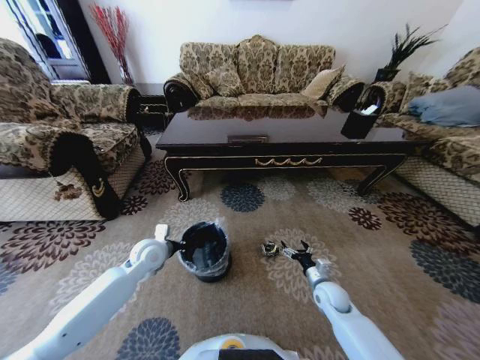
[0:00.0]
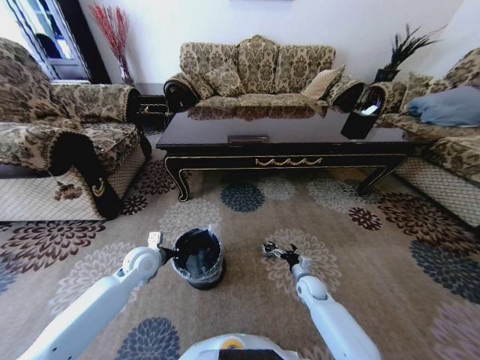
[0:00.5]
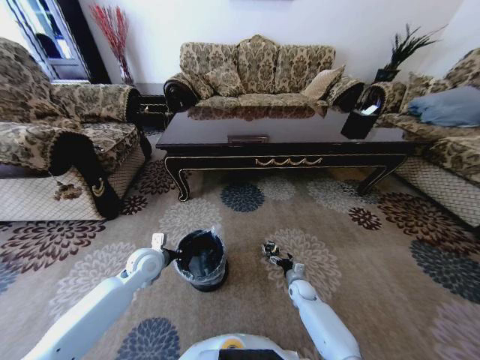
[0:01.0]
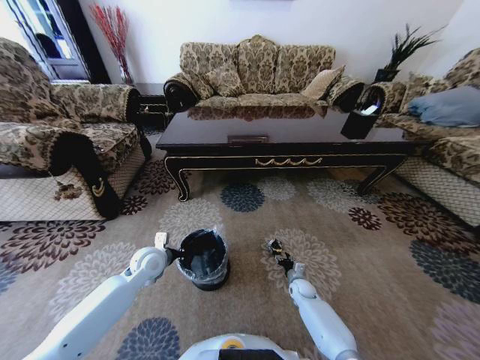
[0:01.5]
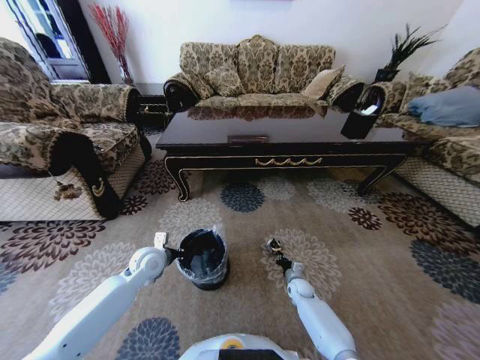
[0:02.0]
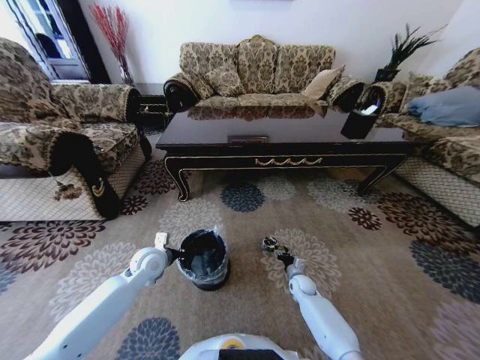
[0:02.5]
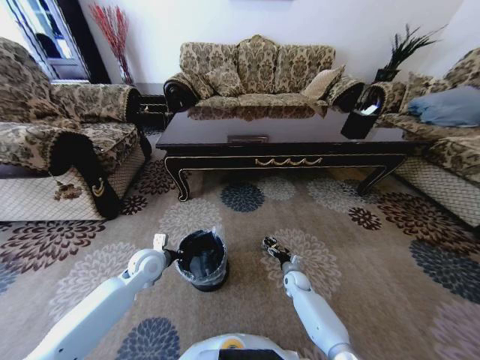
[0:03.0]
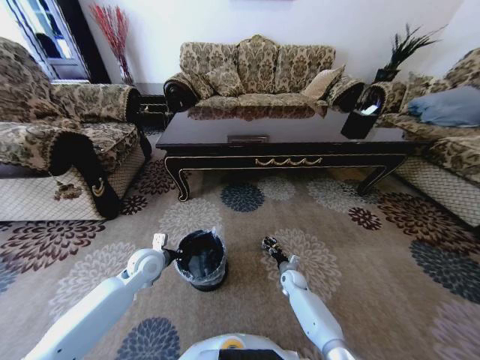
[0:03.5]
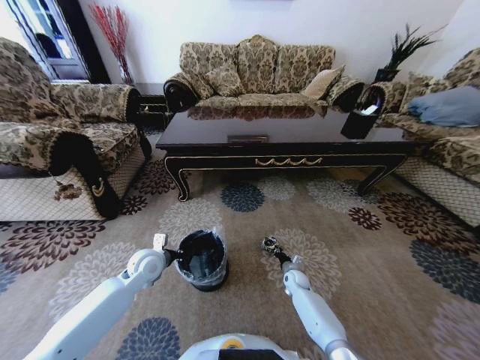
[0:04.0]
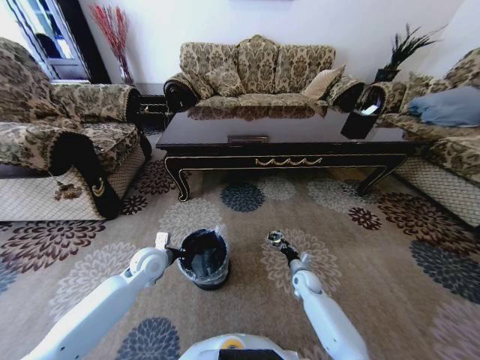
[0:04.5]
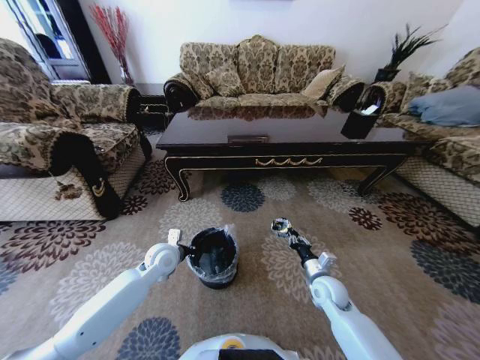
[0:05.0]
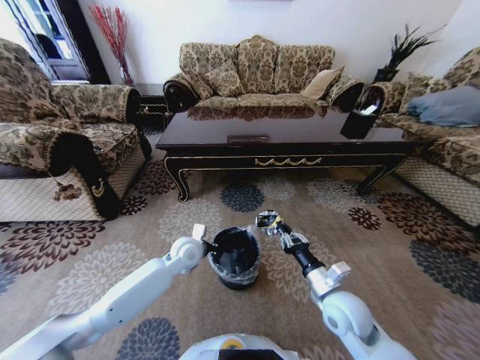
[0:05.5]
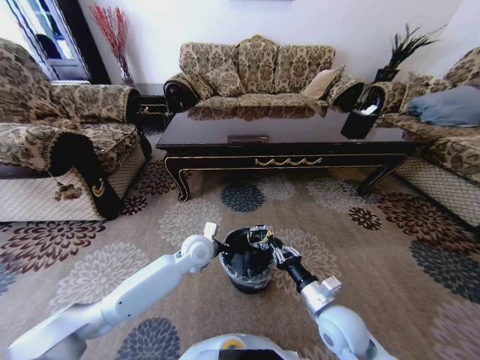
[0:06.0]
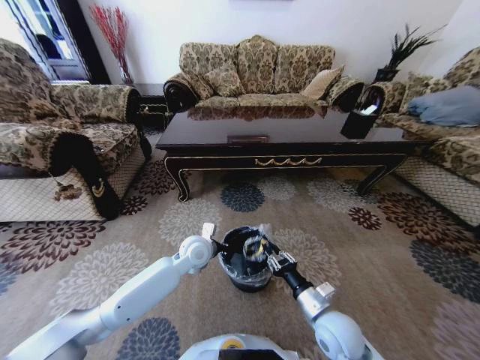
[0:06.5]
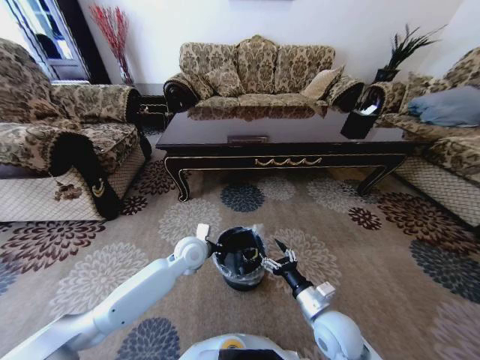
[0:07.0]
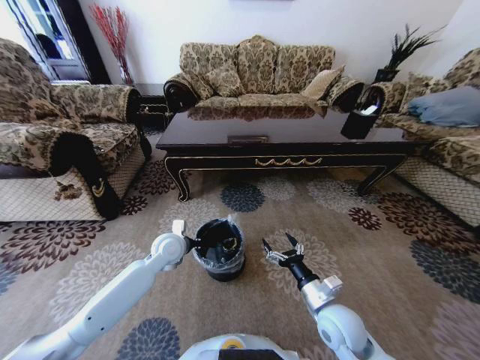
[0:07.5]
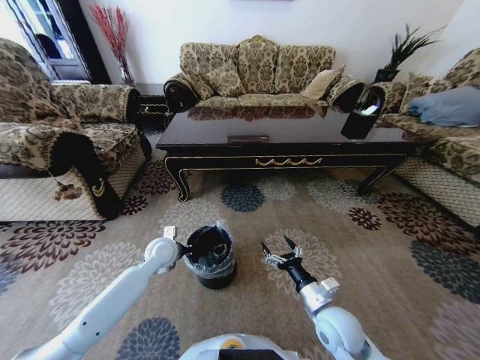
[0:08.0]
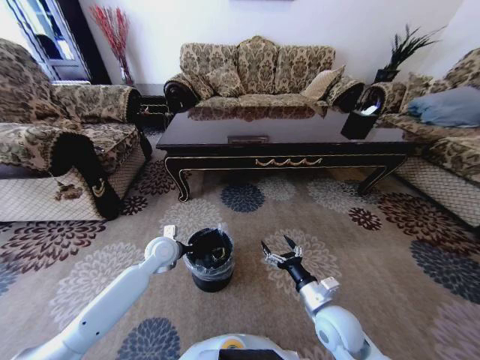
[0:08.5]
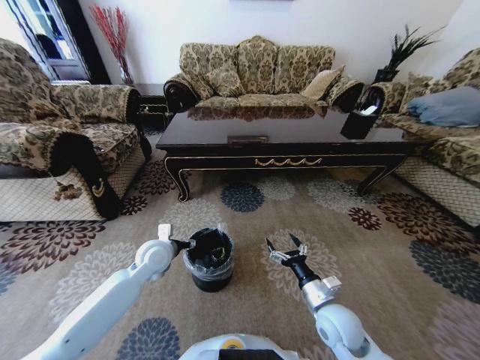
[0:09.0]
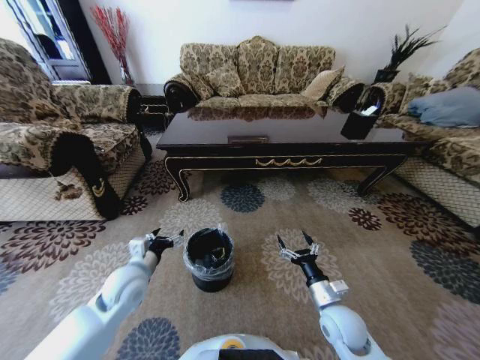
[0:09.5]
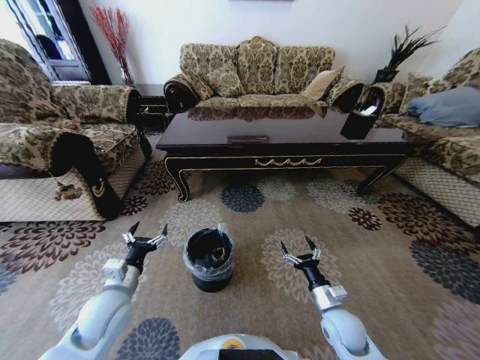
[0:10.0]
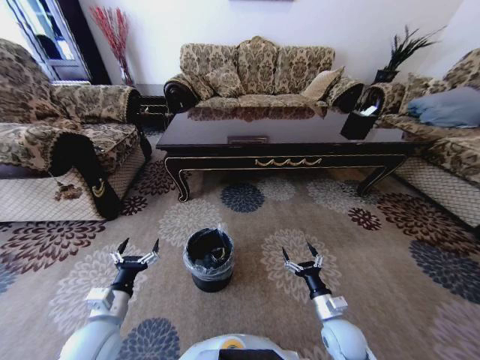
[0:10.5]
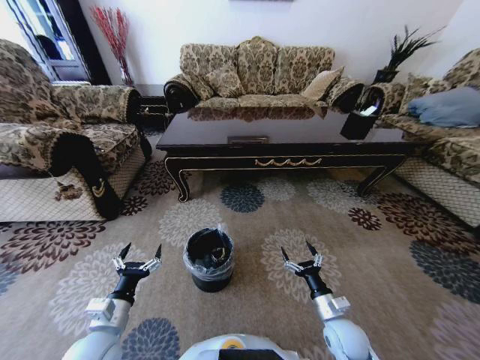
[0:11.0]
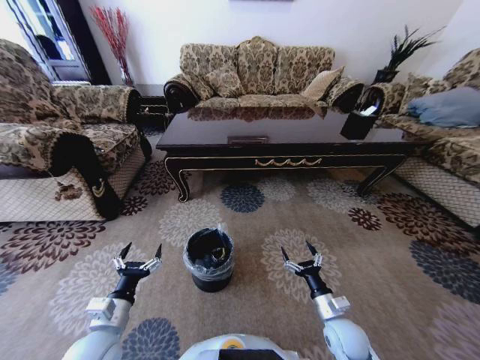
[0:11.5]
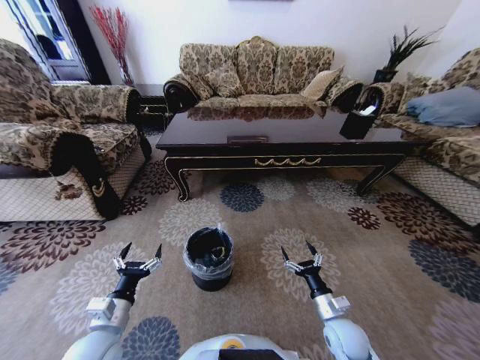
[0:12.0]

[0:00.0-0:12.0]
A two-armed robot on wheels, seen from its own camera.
Task of the whole recording: Move to the front of the table and pick up the trash from the floor, then place it into the trash bin.
0:00.0 to 0:02.0: The right gripper moves downward and forward, roughly 15 cm, and closes its fingers.
0:02.0 to 0:04.0: The right gripper opens and closes again.
0:04.0 to 0:06.0: The right gripper shifts some 30 cm upward and backward; the left gripper is displaced to the right by about 15 cm.
0:06.0 to 0:08.0: The right gripper opens. Meanwhile the left gripper heads to the left, covering some 10 cm.
0:08.0 to 0:10.0: The right gripper shifts some 5 cm downward. The left gripper shifts roughly 20 cm backward and to the left, and opens up.
0:10.0 to 0:12.0: The left gripper travels backward by some 5 cm.

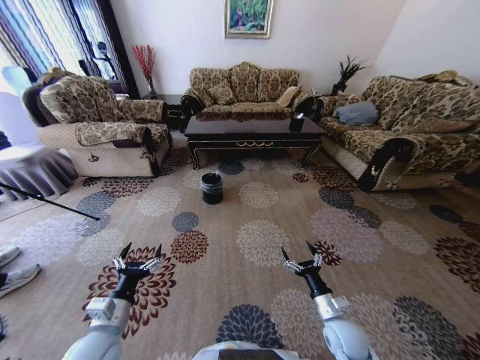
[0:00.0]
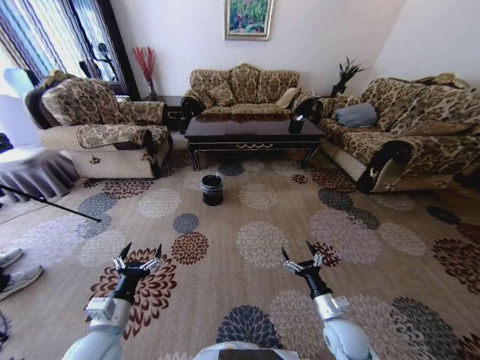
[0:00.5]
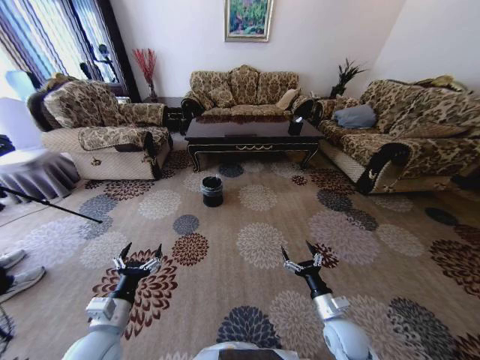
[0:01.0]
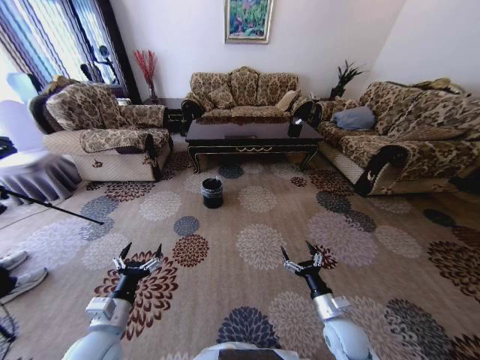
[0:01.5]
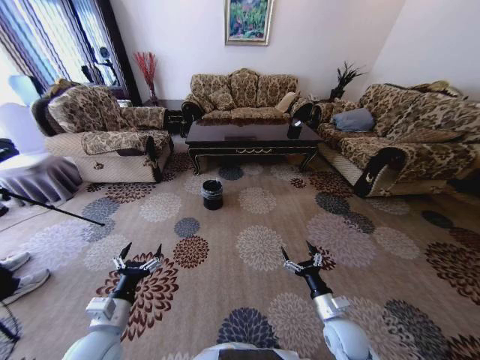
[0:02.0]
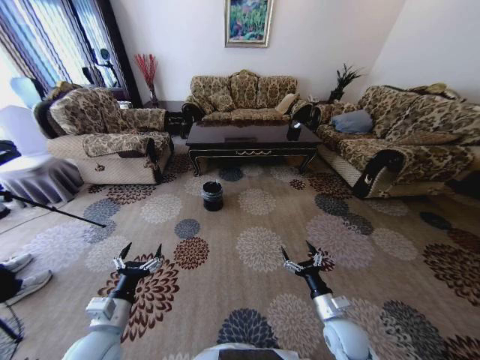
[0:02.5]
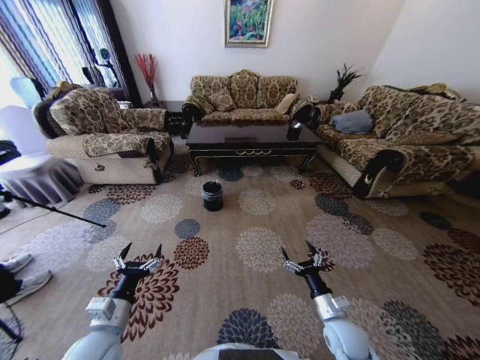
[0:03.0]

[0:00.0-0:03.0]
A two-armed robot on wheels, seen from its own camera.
Task of the whole recording: Move to the front of the table and pick up the trash from the floor, then place it into the trash bin.
0:01.5 to 0:03.0: Neither gripper changes place.

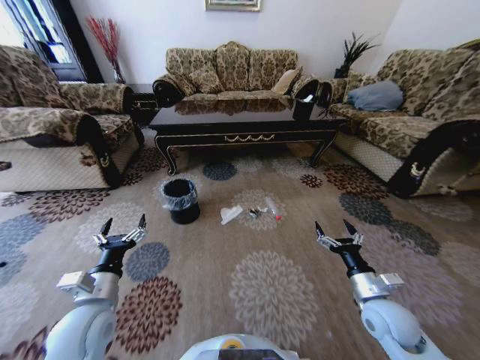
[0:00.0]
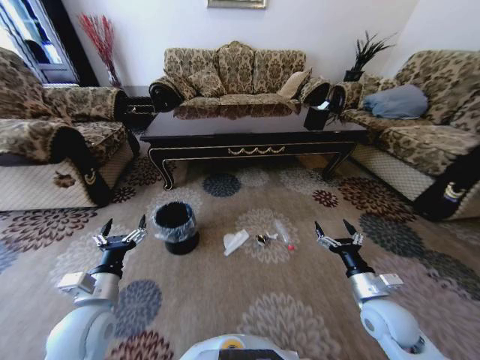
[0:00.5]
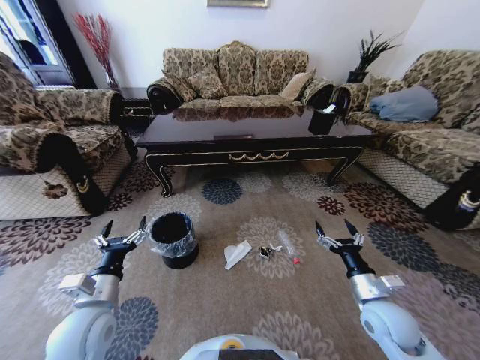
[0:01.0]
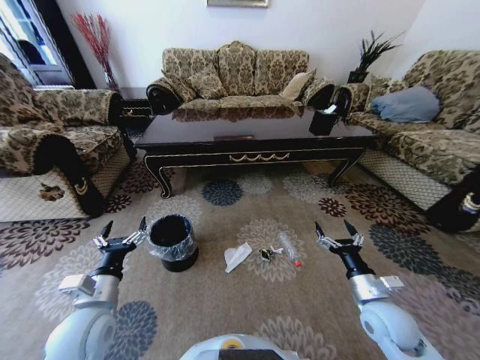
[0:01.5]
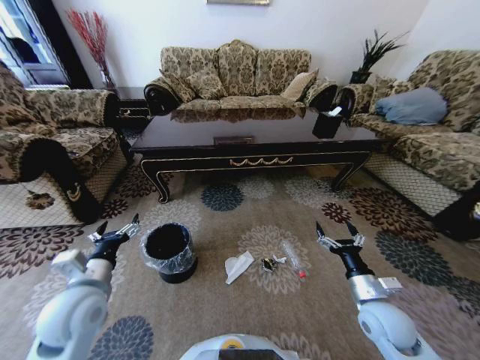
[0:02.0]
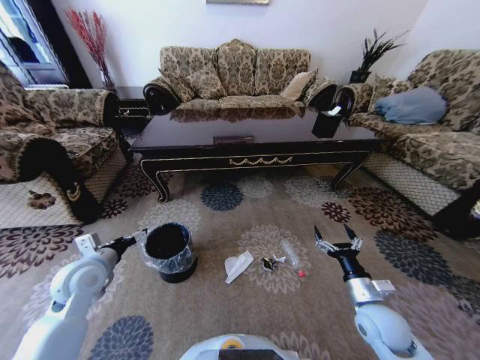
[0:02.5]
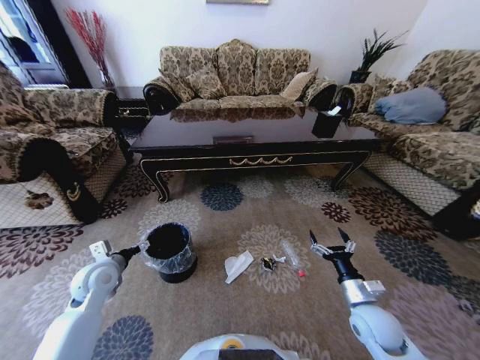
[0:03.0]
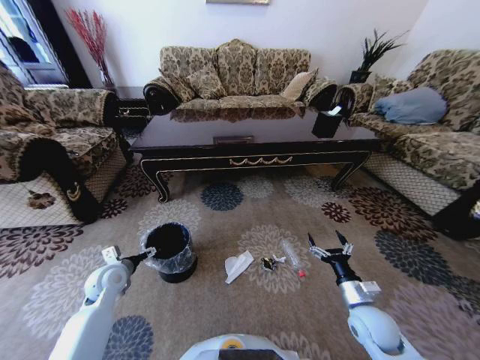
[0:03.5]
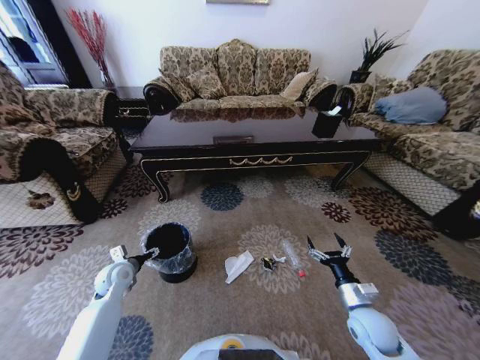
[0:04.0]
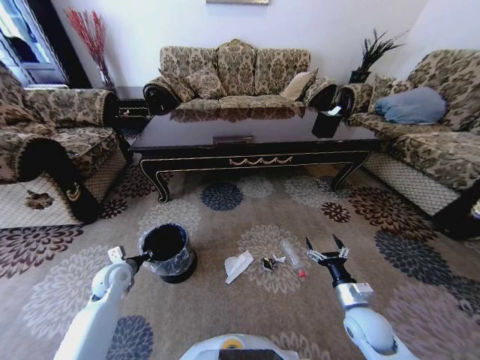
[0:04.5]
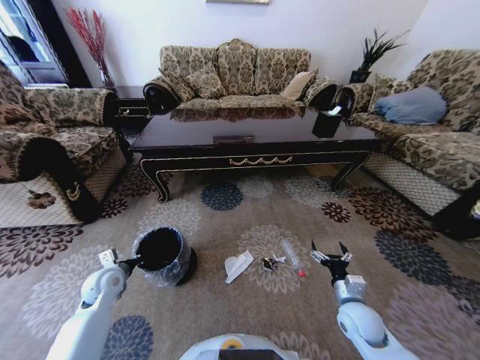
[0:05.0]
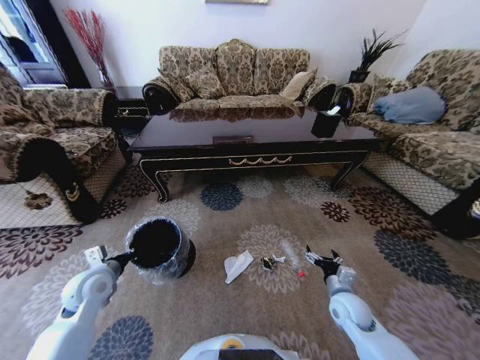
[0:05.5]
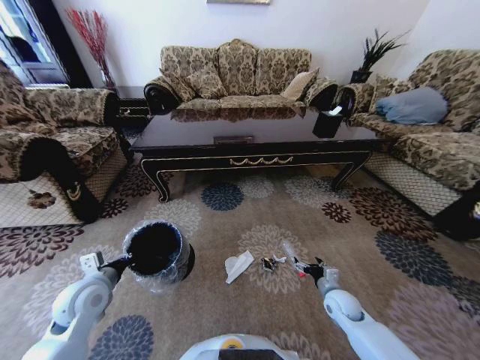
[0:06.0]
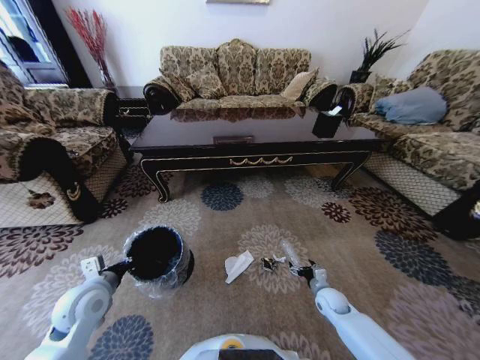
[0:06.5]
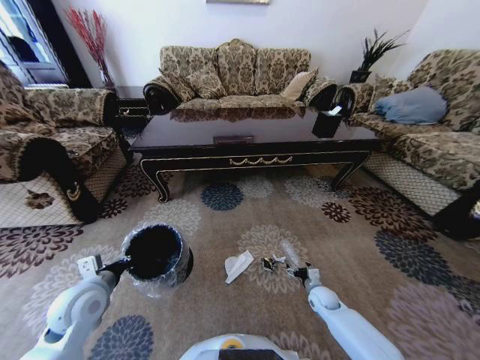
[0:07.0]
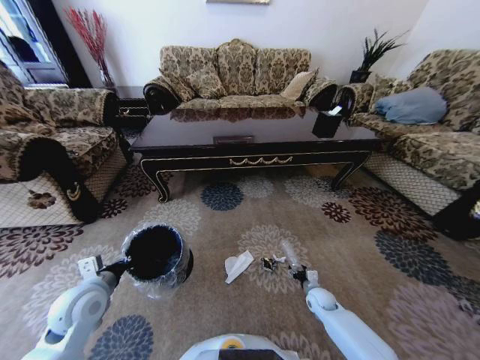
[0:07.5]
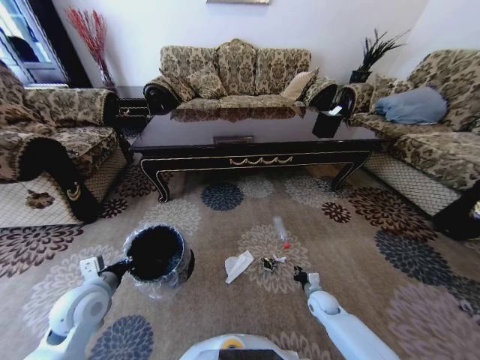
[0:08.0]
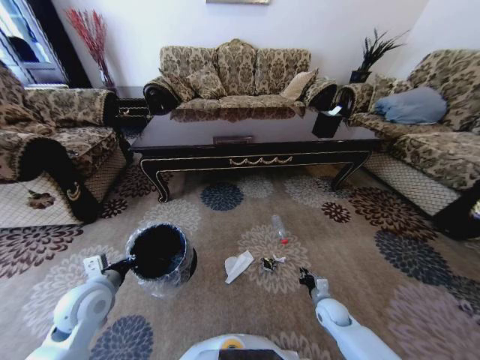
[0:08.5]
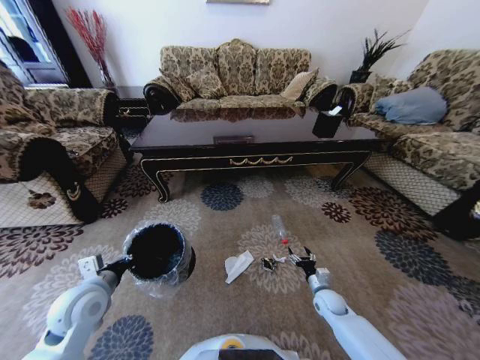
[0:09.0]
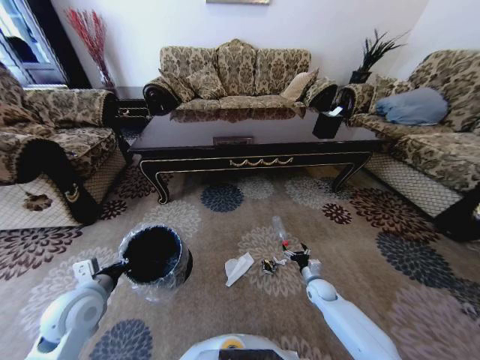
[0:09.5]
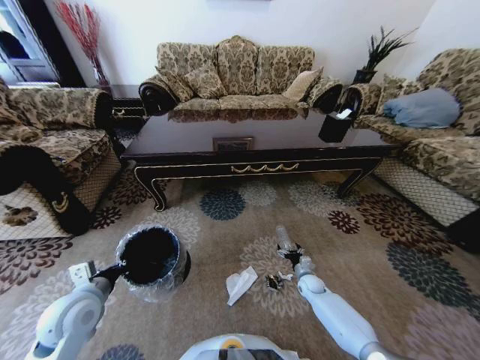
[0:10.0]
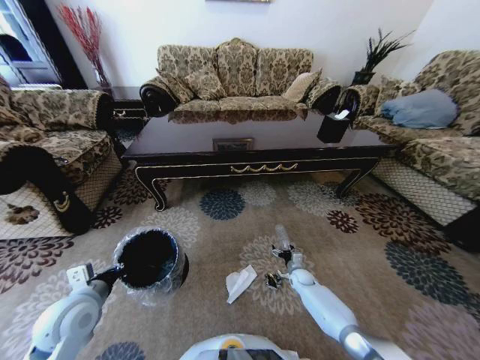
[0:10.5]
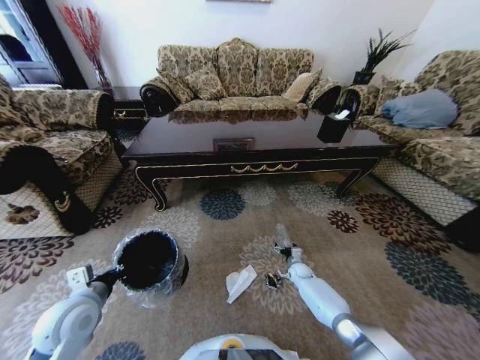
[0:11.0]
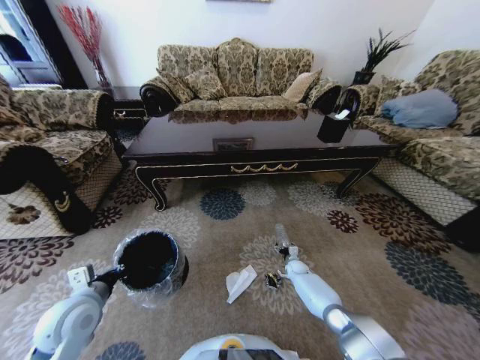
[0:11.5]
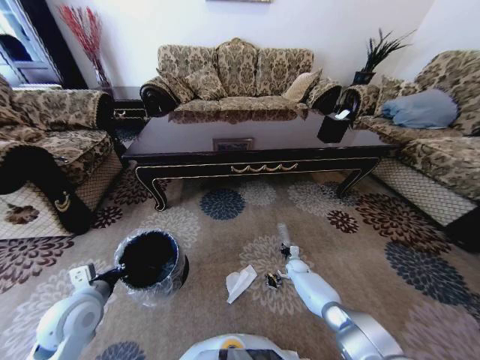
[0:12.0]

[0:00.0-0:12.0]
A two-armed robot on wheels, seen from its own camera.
Task of the whole recording: Move to the front of the table and pick up the trash from the floor, then place it into the trash bin.
0:02.0 to 0:04.0: The right gripper travels downward by some 5 cm, while the left gripper is displaced downward, forward and to the left by about 20 cm.
0:04.0 to 0:06.0: The right gripper travels downward and forward by roughly 10 cm. Meanwhile the left gripper moves upward and backward, some 10 cm, and closes its fingers.
0:06.0 to 0:08.0: The right gripper heads downward, covering approximately 10 cm, and closes up.
0:08.0 to 0:10.0: The right gripper goes some 5 cm forward, and opens its fingers.
0:10.0 to 0:12.0: The right gripper goes roughly 10 cm forward, and closes.
